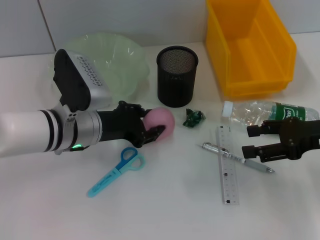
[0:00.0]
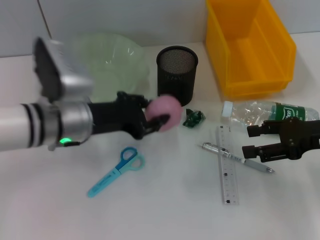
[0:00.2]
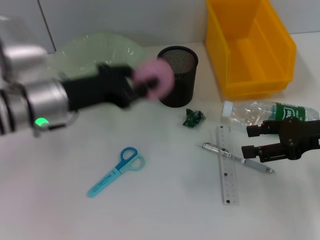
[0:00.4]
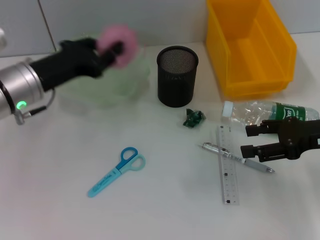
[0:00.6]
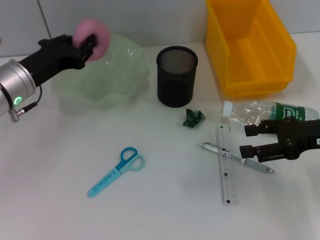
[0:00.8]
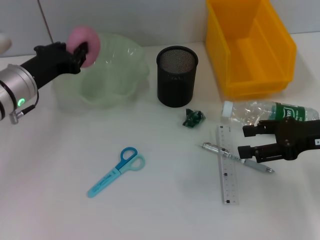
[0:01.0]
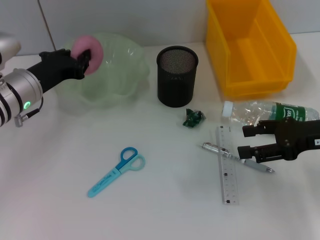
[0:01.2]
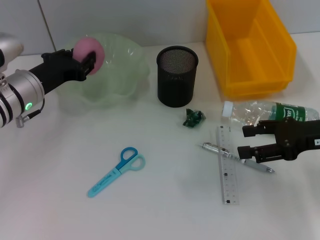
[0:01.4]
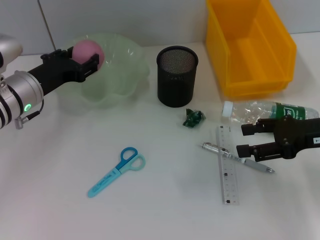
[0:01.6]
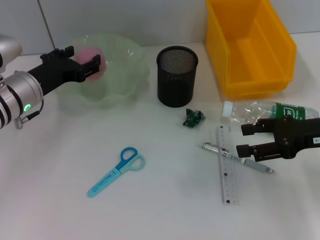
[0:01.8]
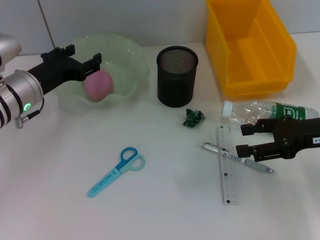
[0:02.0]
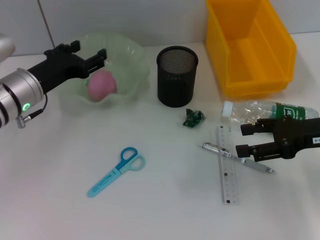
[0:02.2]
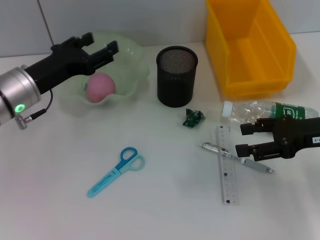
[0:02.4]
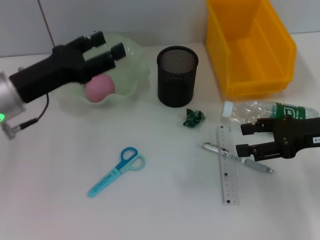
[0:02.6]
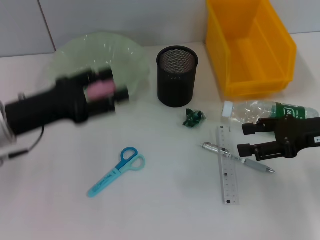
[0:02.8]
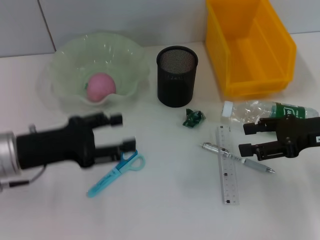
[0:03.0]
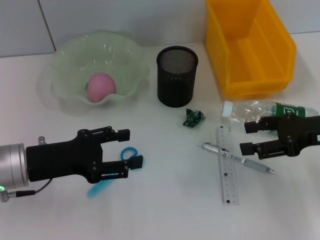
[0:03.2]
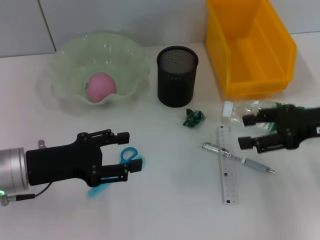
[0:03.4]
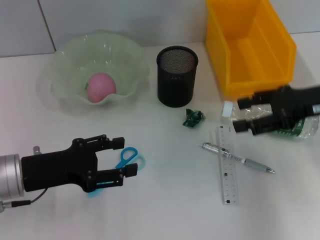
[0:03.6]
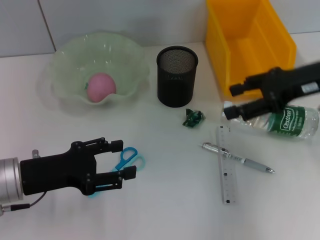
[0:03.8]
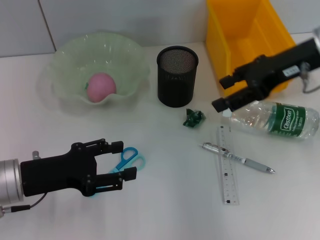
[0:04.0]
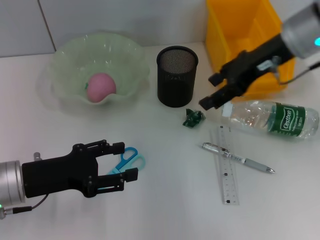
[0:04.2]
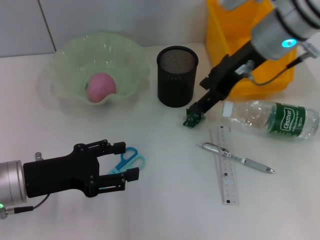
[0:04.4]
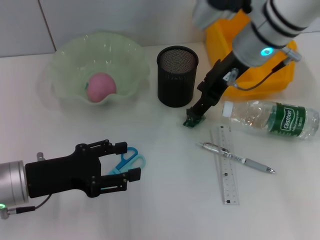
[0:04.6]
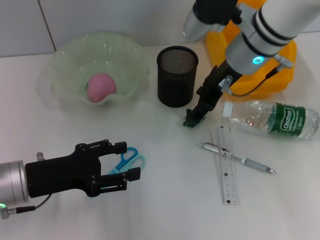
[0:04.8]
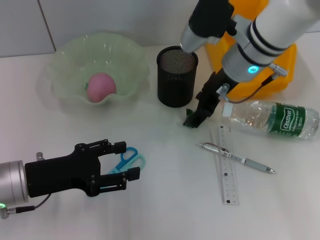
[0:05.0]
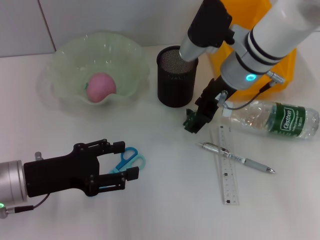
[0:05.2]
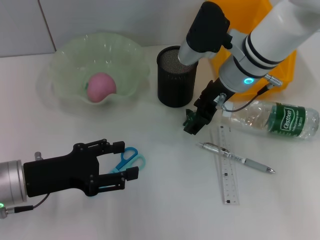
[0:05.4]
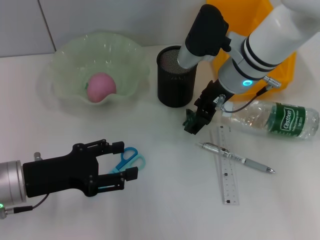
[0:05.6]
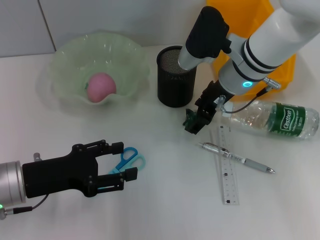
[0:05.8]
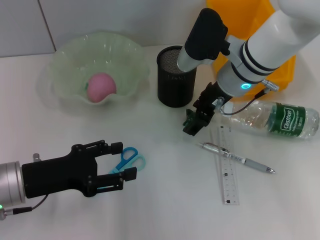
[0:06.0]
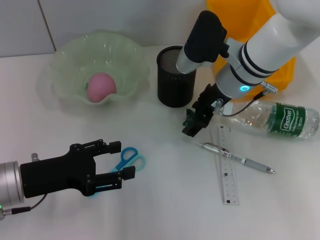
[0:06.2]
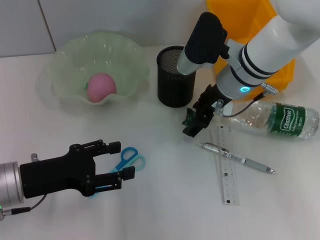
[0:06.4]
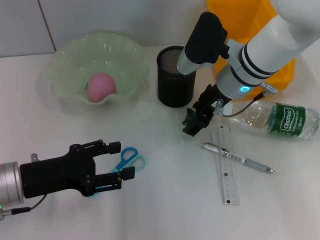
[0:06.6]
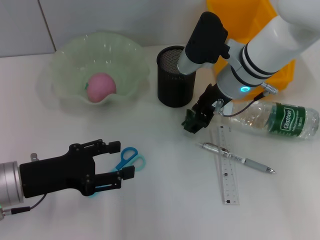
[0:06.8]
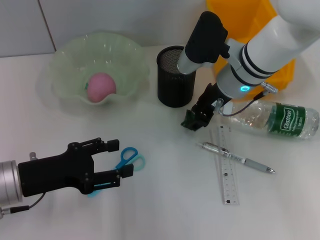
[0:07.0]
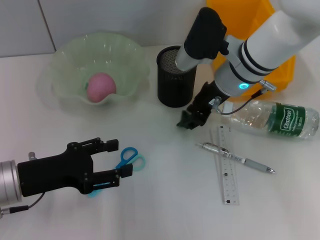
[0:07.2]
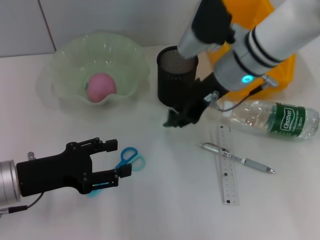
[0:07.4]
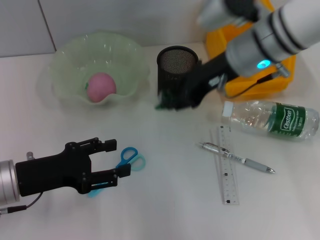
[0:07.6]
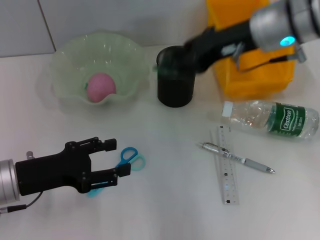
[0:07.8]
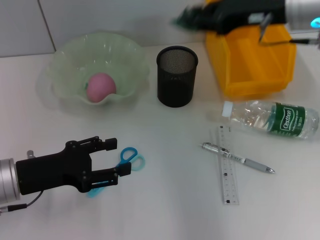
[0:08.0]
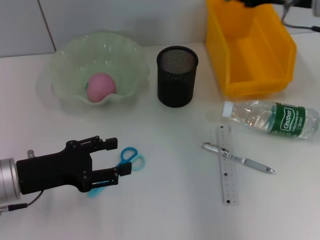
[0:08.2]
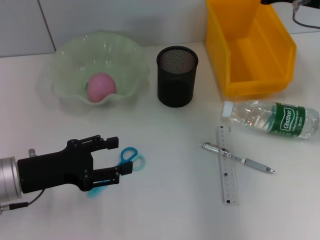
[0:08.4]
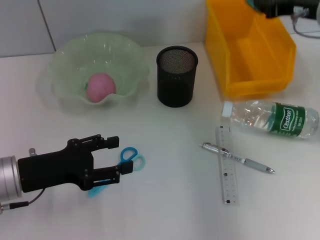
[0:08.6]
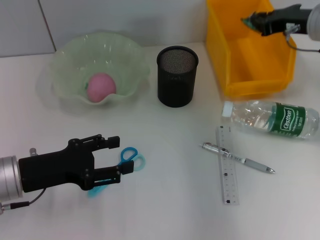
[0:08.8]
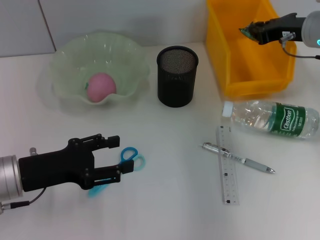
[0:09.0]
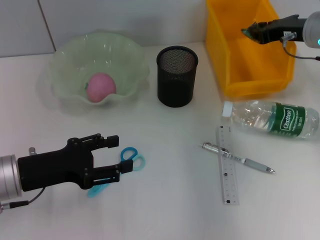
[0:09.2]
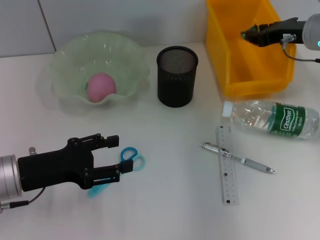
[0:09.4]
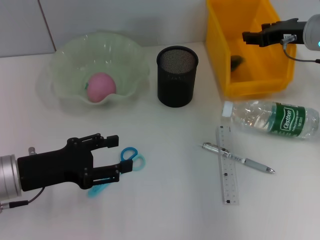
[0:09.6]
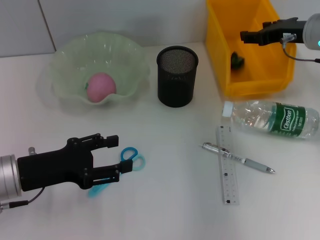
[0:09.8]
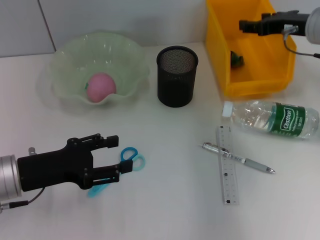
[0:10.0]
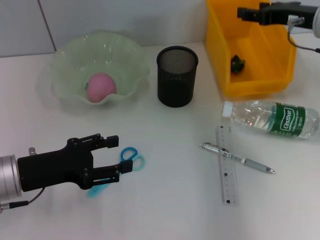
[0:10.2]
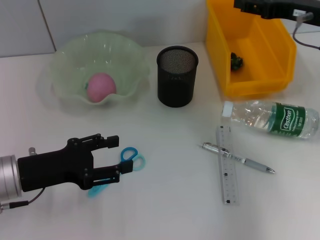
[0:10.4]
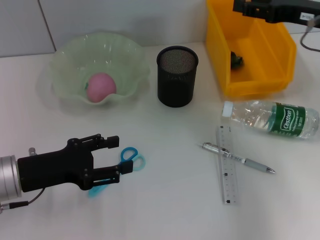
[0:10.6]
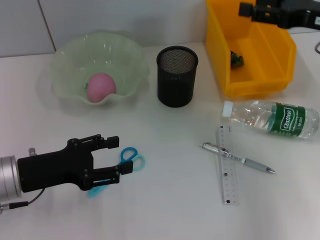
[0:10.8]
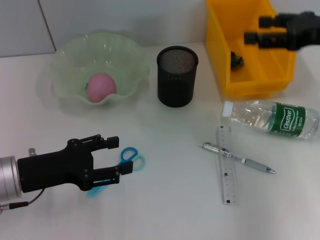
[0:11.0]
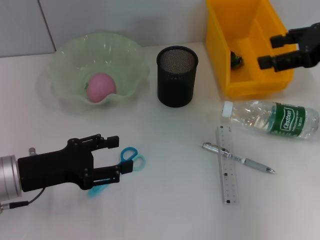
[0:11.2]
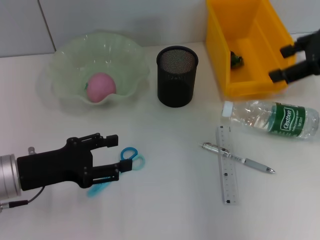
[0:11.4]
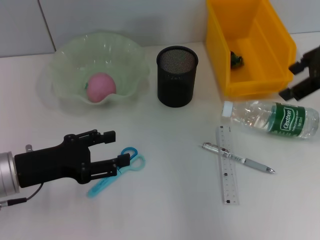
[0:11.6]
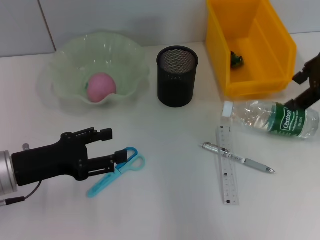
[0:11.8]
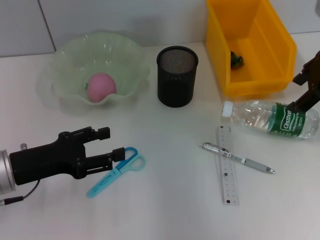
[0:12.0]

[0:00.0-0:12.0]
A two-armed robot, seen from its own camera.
Step, 0:00.0 to 0:01.8: Place the peach into the fruit bowl with the left hand.
Step, 0:02.0 to 0:06.8: Grab the plastic with the right hand.
Step, 0:07.0 to 0:09.6: Place the plastic into the trash can with the right hand.
0:00.0 to 0:01.6: The left gripper travels to the left by approximately 10 cm, and closes and opens again.
0:01.6 to 0:03.0: The left gripper is displaced backward by some 10 cm, and opens up.
0:03.0 to 0:04.4: The right gripper is displaced to the left, forward and upward by approximately 20 cm.
0:04.4 to 0:06.0: The right gripper heads downward, covering about 10 cm.
0:06.0 to 0:07.6: The right gripper heads upward, covering roughly 5 cm, and closes.
0:07.6 to 0:09.0: The right gripper heads to the right, covering roughly 15 cm.
0:09.0 to 0:10.4: The right gripper opens its fingers.

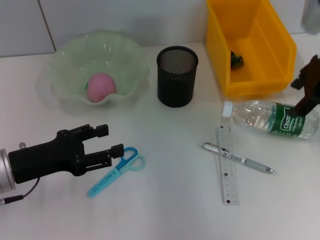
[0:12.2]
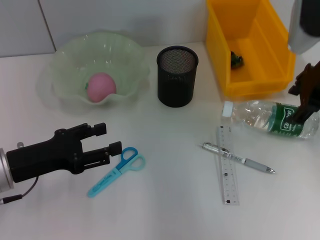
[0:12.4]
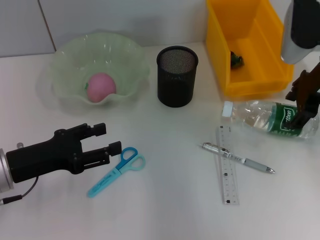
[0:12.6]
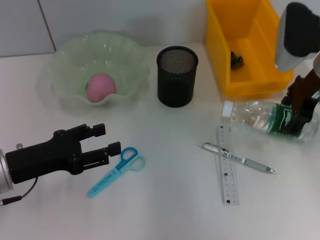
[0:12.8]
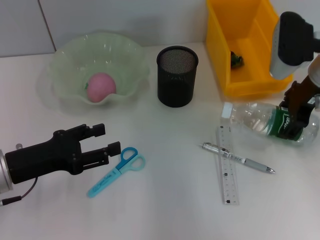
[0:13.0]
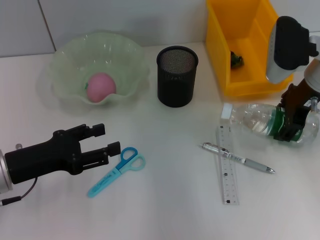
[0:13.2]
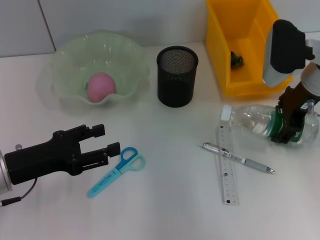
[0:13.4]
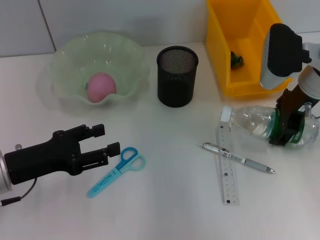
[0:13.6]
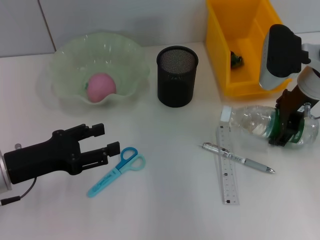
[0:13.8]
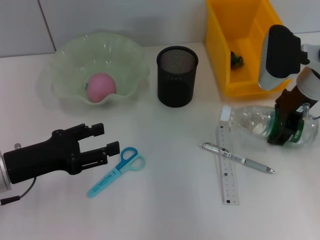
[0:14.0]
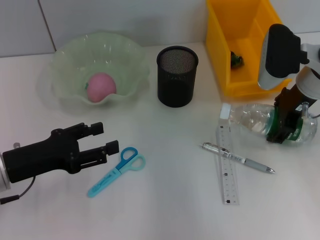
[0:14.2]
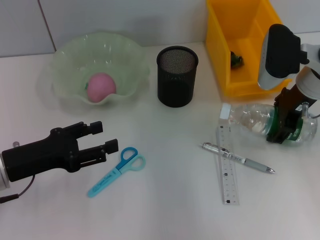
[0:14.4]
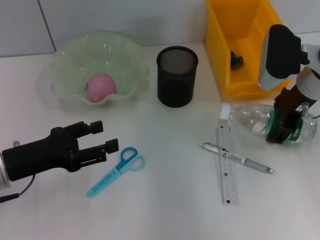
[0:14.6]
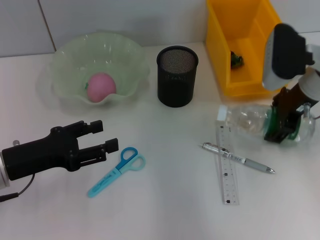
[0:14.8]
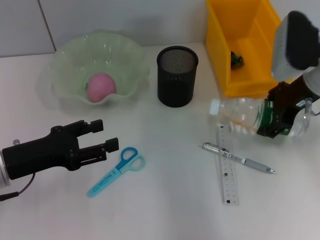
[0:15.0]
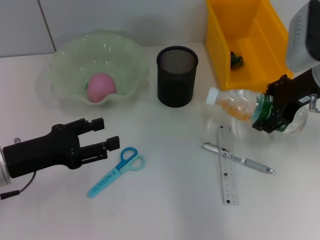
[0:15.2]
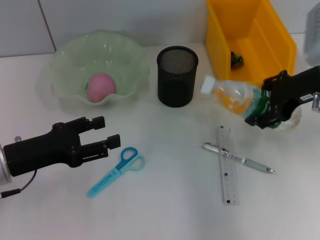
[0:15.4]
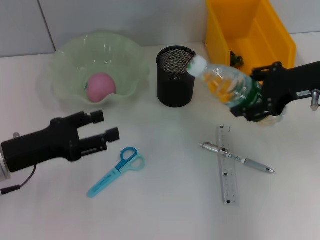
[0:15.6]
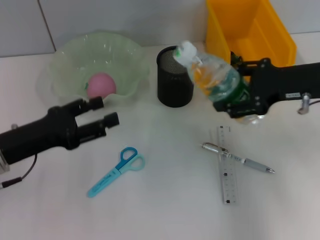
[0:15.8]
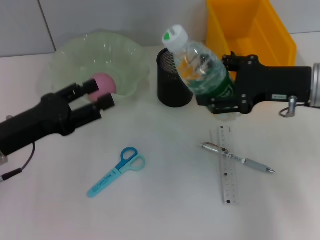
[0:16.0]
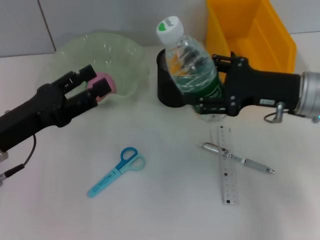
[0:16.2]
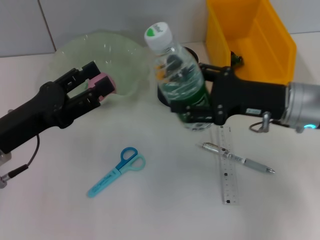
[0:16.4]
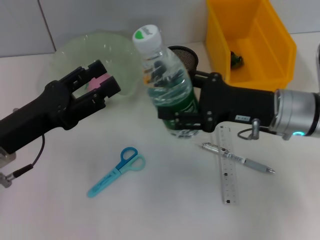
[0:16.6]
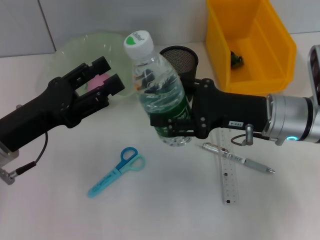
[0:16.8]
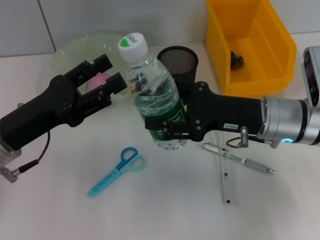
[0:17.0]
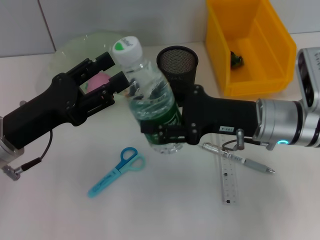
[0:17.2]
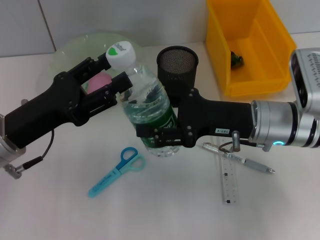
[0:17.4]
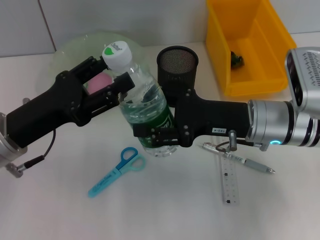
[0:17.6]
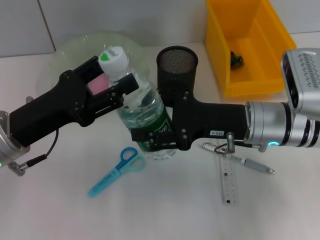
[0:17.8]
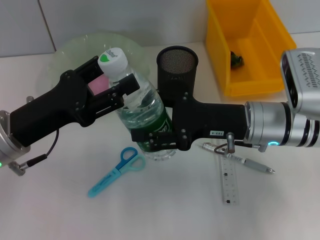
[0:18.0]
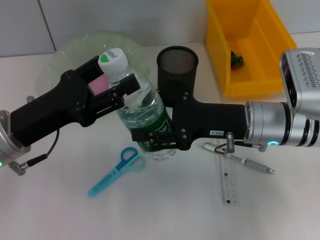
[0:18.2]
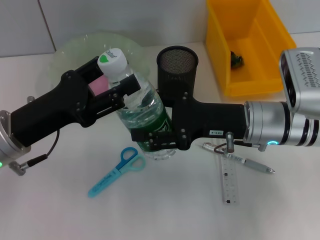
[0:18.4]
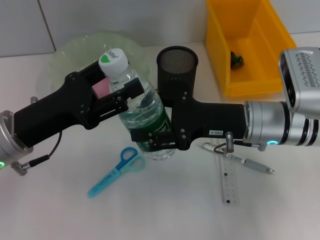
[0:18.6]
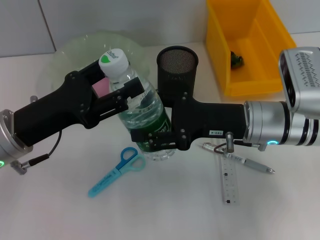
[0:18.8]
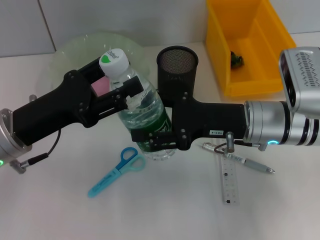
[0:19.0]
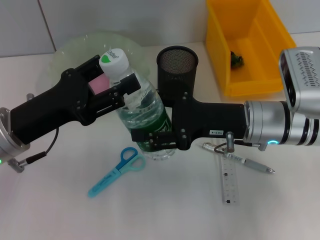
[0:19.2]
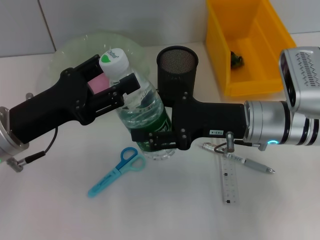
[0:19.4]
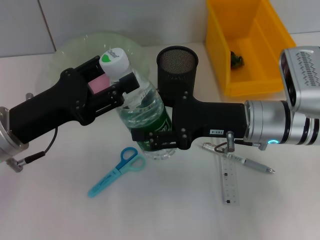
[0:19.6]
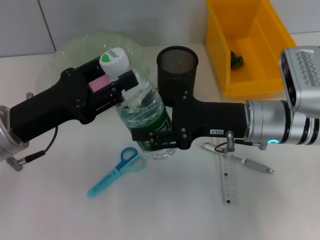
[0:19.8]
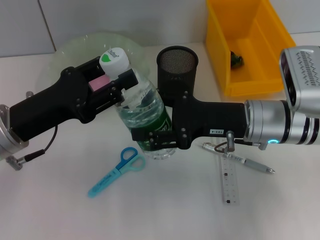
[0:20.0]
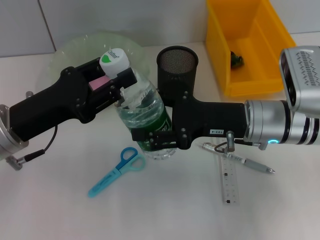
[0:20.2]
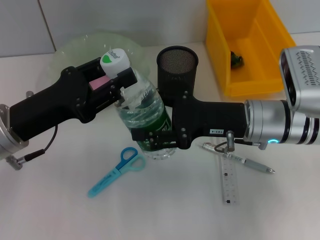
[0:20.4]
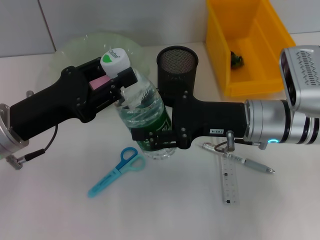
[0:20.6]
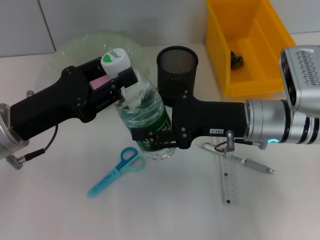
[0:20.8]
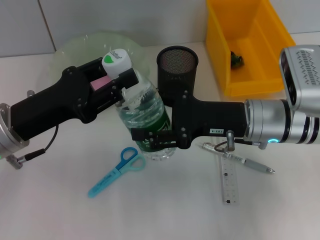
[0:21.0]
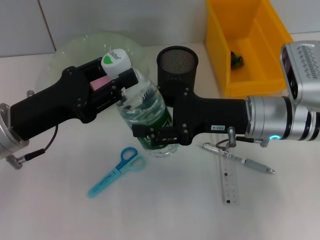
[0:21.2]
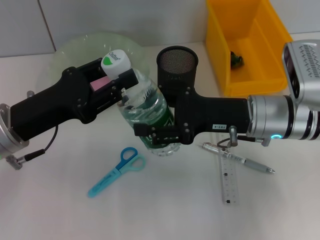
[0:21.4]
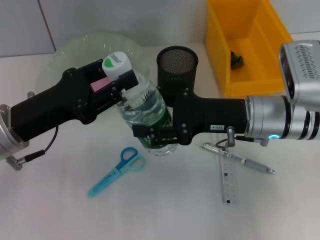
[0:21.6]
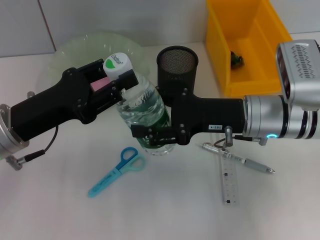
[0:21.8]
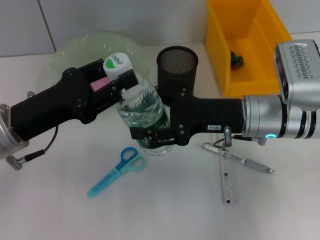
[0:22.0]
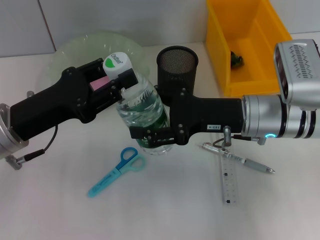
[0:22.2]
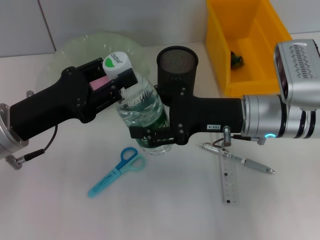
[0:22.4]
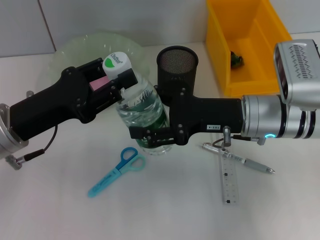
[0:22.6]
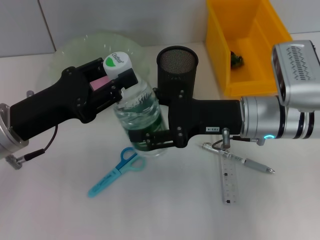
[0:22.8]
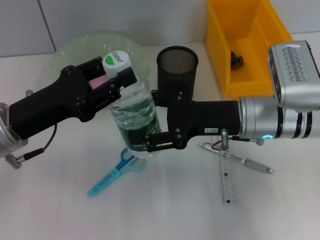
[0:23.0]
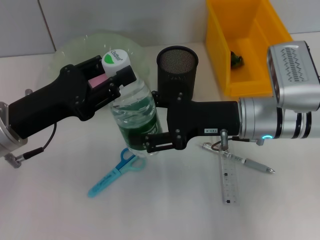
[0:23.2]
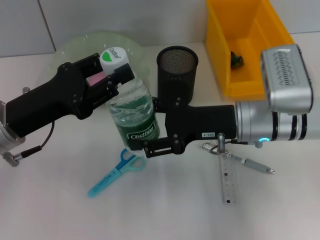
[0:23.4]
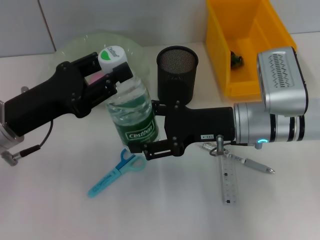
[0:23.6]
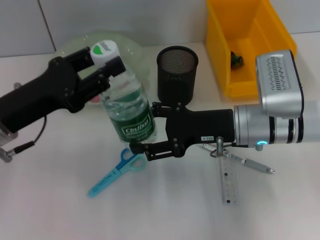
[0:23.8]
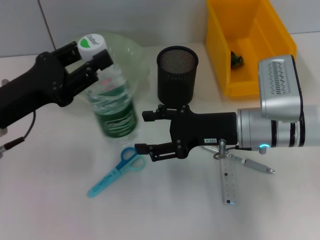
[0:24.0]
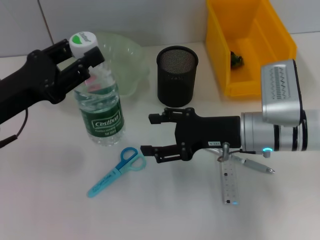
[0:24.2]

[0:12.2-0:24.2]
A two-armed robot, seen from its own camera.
Step, 0:12.2 to 0:14.6: Grab the water bottle with the right hand.
Step, 0:14.8 to 0:23.4: Pass the water bottle from the right hand to the left hand.
0:12.2 to 0:13.8: The right gripper shifts some 10 cm downward.
0:13.8 to 0:15.2: There are only small adjustments of the grippers.
0:15.2 to 0:16.6: The right gripper is displaced downward, to the left and backward by some 10 cm.
0:18.2 to 0:22.6: Both grippers stay about where they are.
